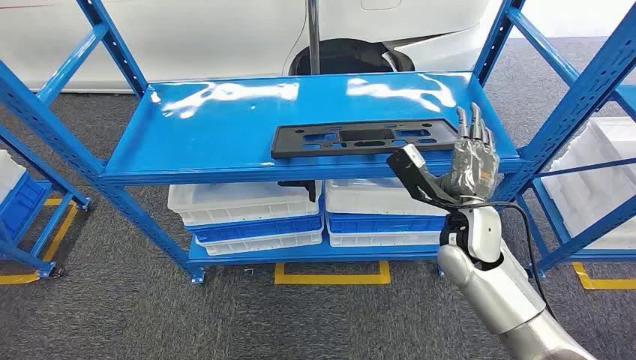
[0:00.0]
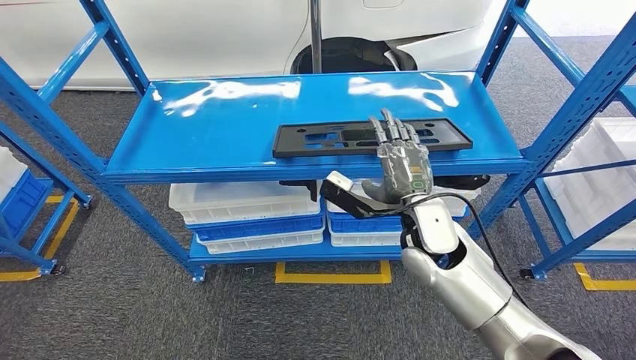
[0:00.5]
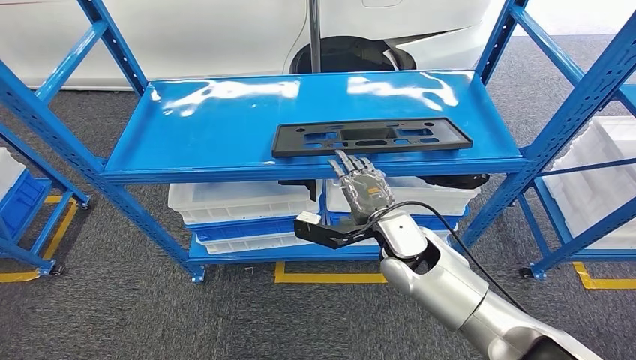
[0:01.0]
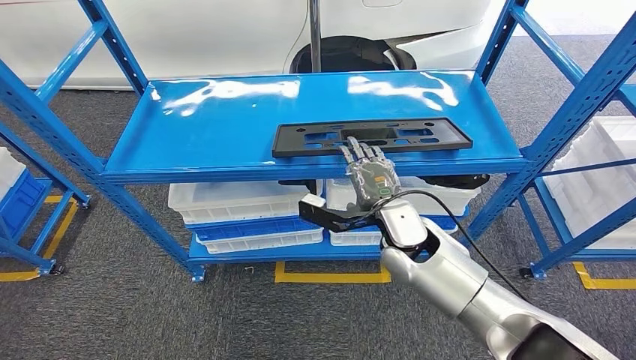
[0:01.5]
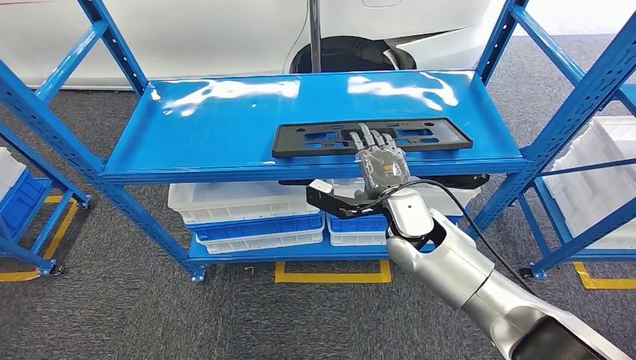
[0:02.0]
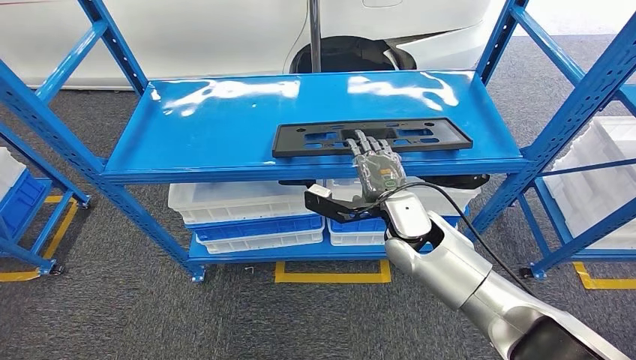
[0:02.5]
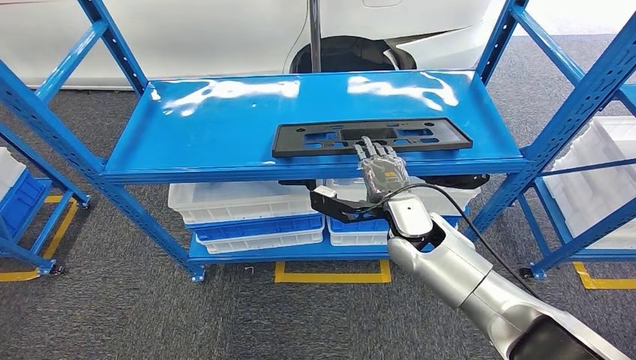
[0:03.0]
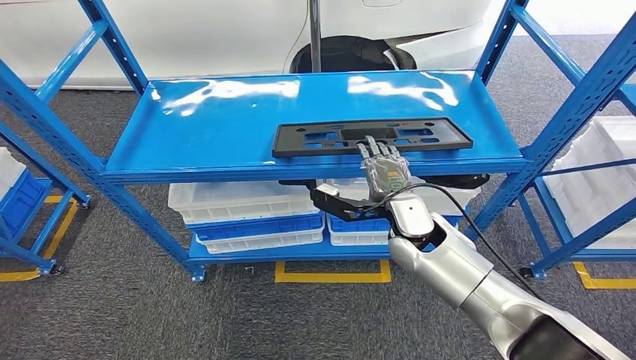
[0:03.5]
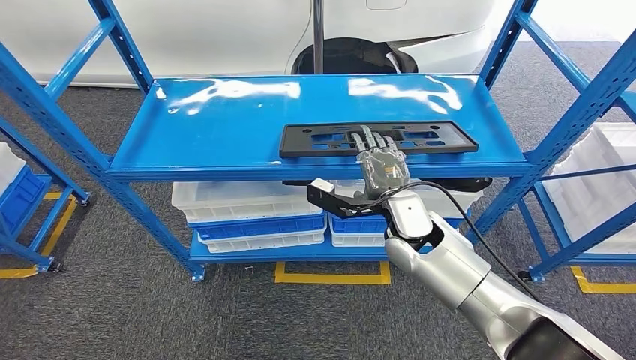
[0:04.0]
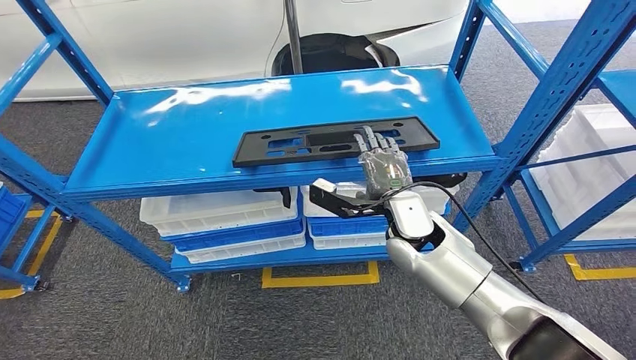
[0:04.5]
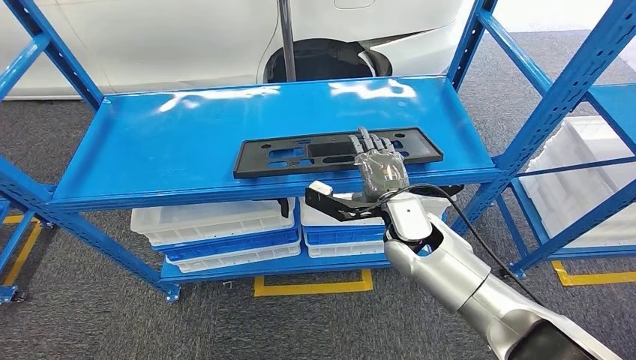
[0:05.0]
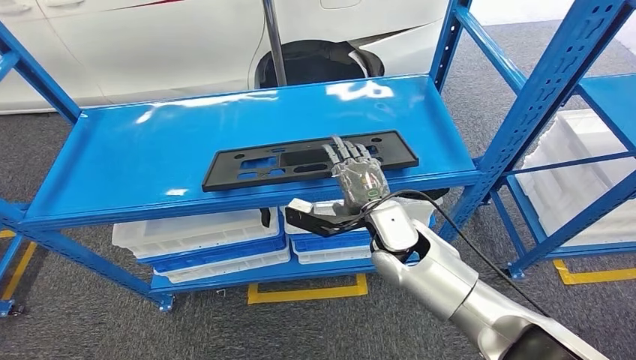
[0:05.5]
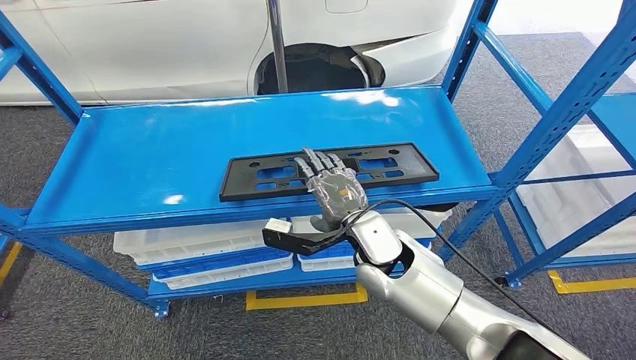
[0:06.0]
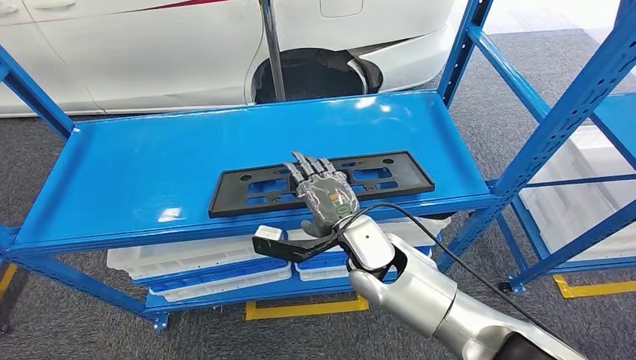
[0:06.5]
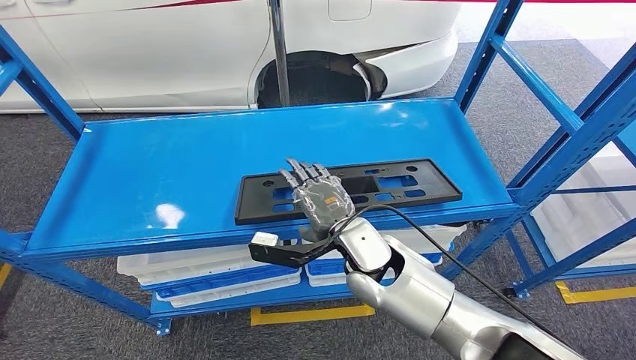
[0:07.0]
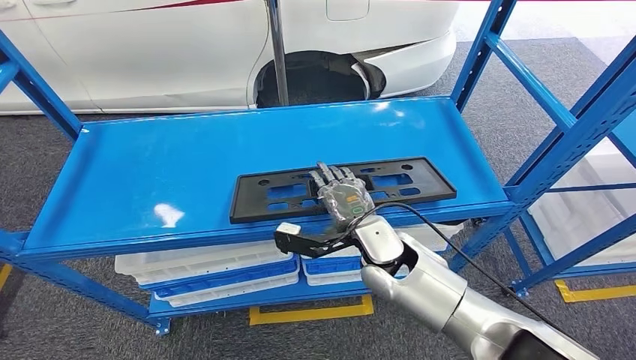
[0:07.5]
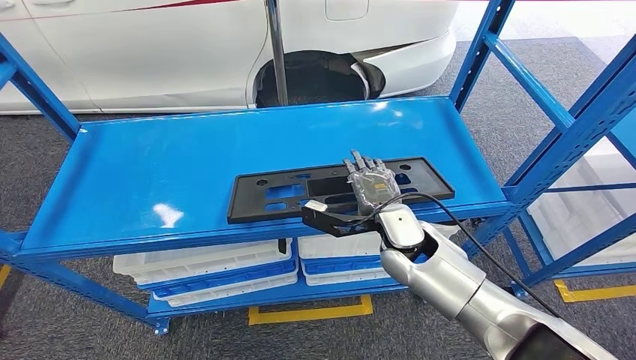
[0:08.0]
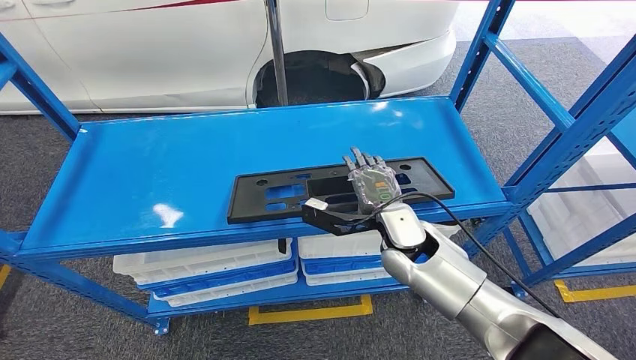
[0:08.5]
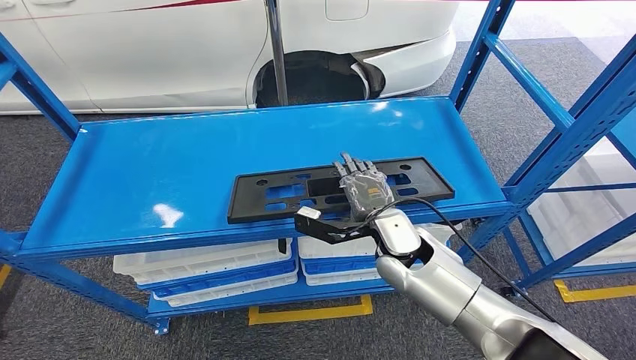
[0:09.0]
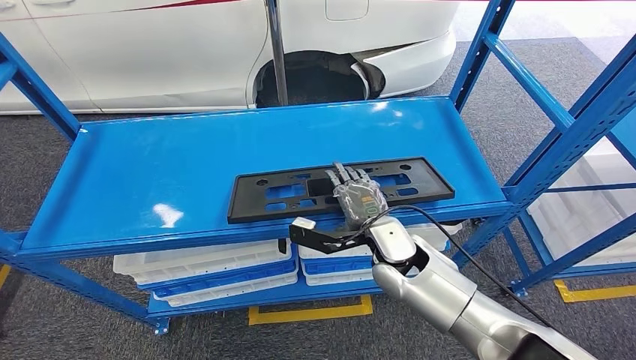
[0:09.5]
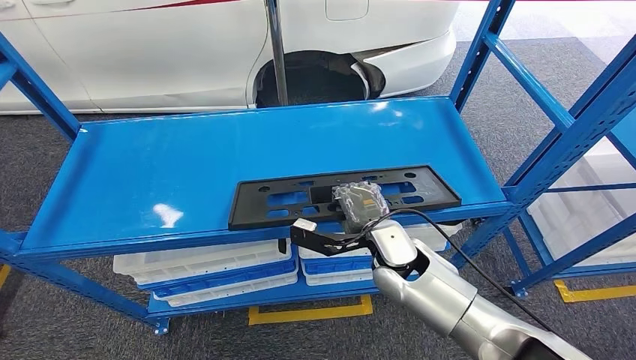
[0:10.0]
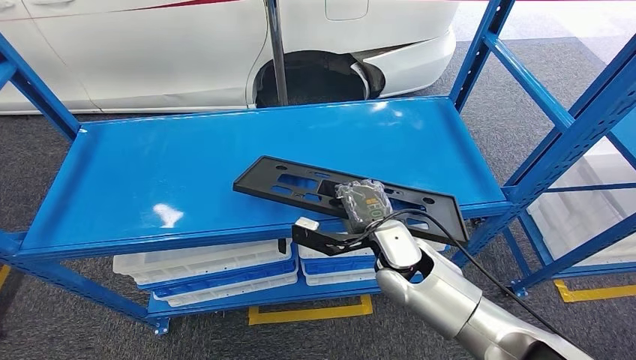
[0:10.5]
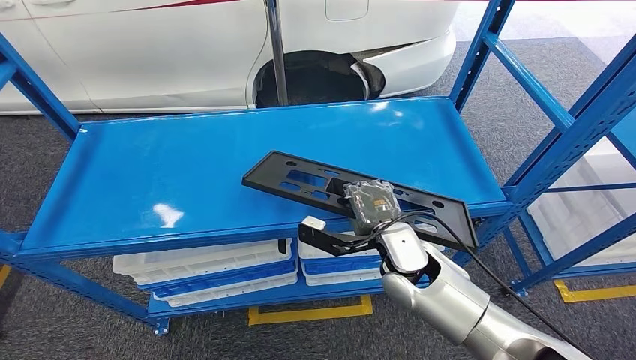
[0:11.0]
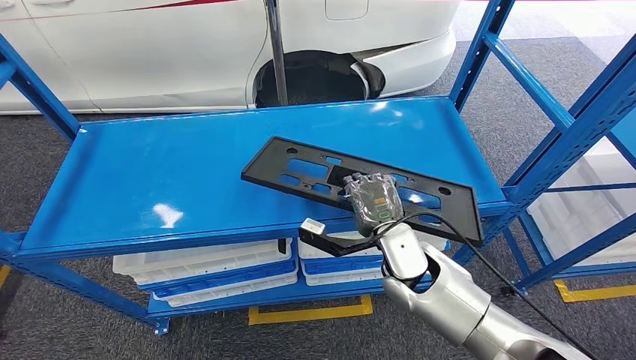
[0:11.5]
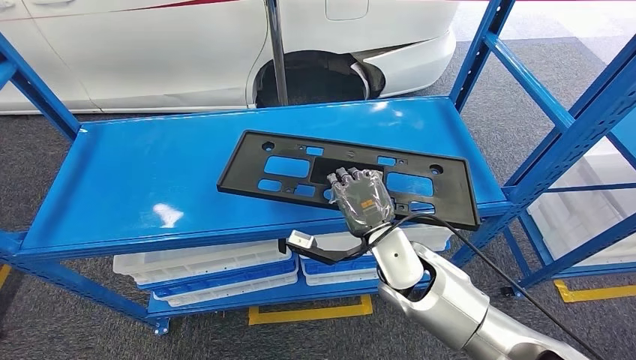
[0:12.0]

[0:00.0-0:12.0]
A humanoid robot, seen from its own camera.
0:02.0 to 0:04.0: The hands make only small movements.
0:08.0 to 0:10.0: There are only small adjustments of the hands.

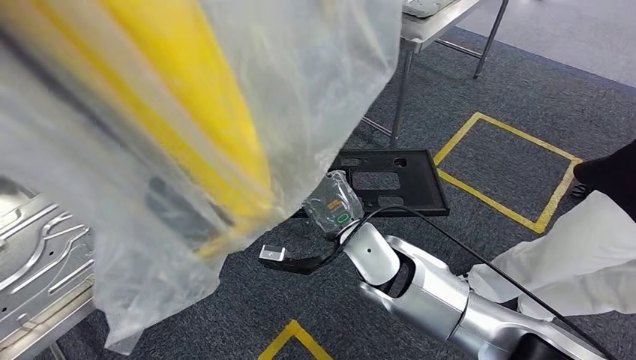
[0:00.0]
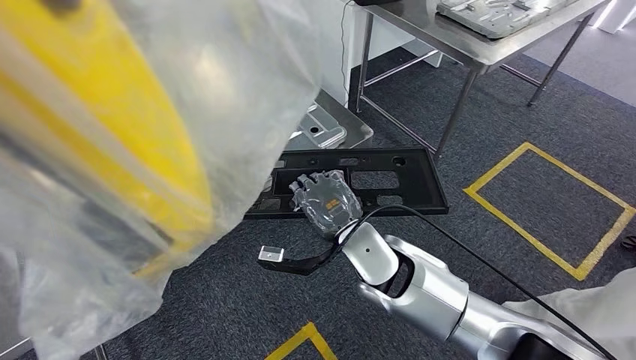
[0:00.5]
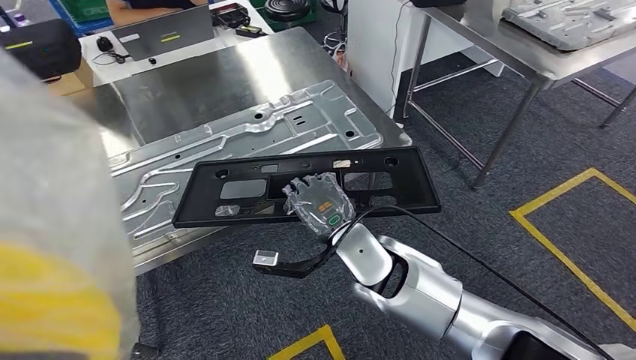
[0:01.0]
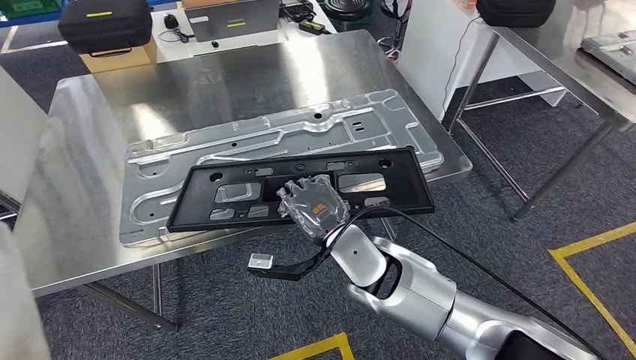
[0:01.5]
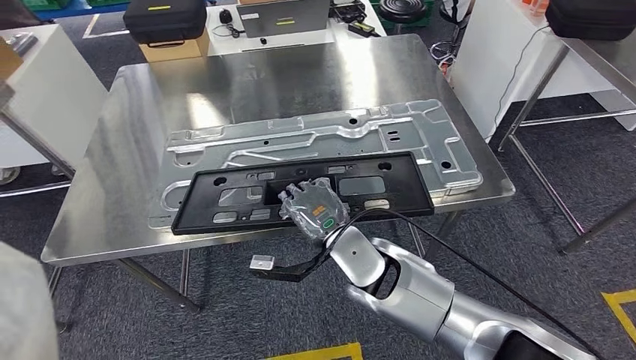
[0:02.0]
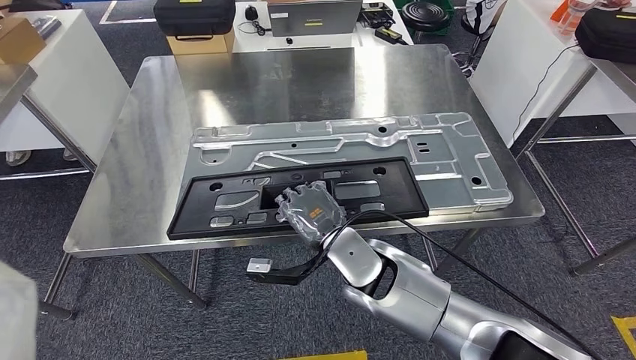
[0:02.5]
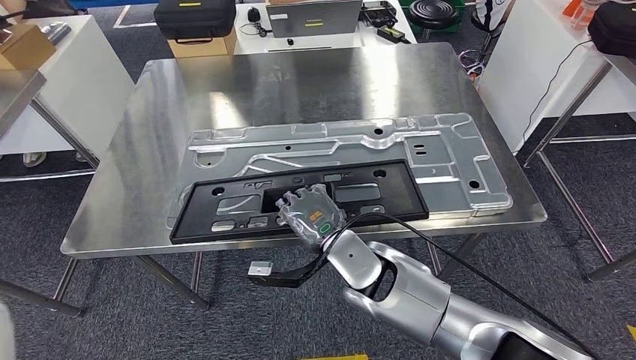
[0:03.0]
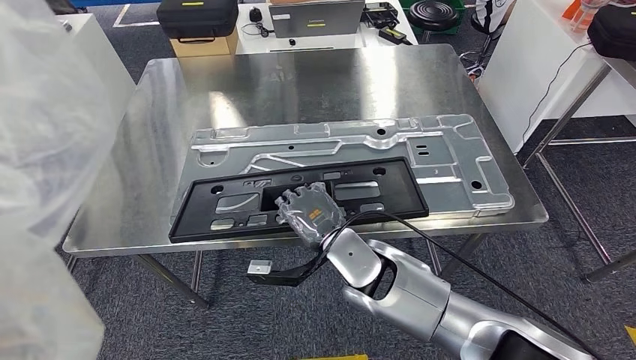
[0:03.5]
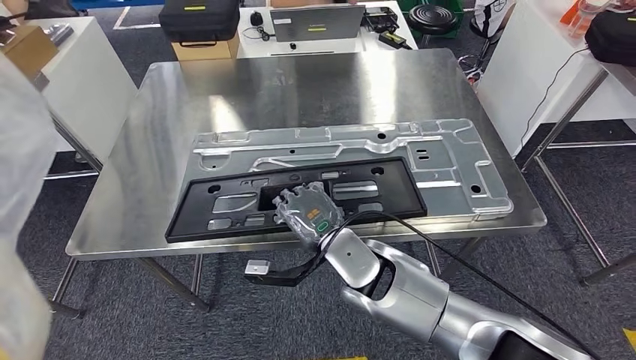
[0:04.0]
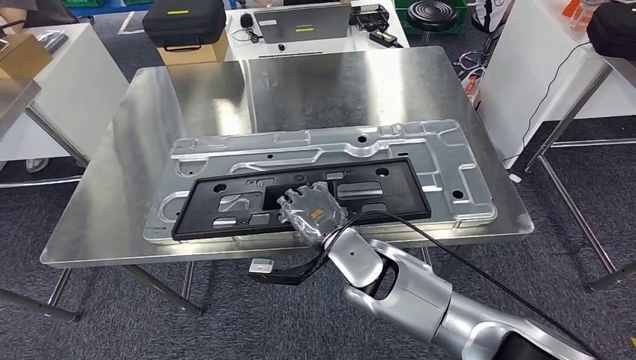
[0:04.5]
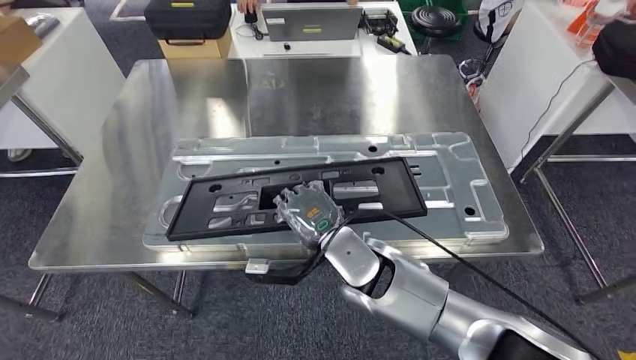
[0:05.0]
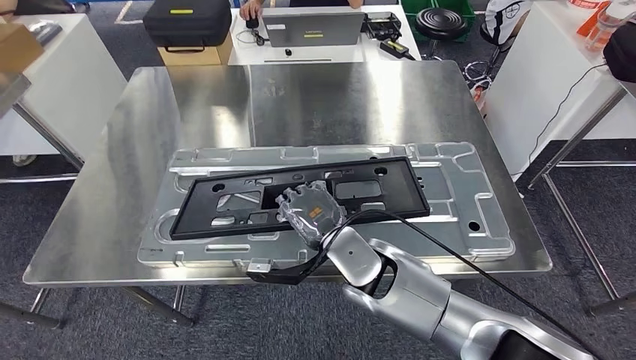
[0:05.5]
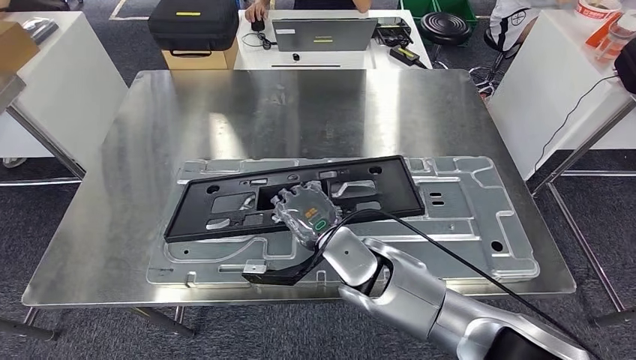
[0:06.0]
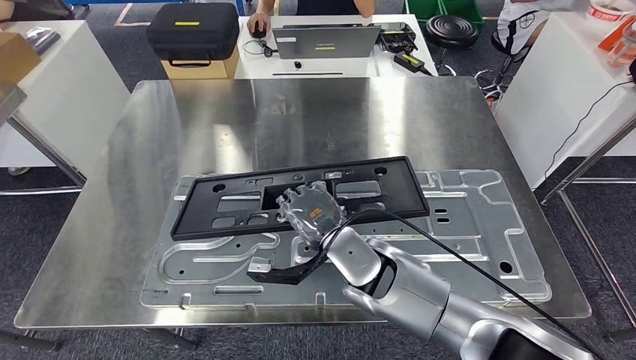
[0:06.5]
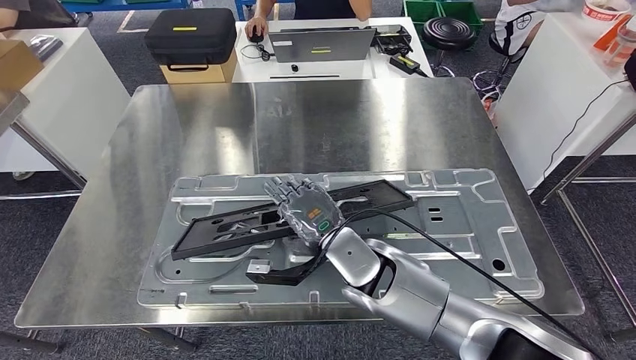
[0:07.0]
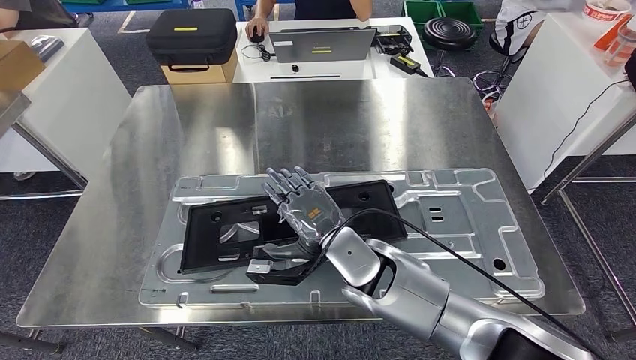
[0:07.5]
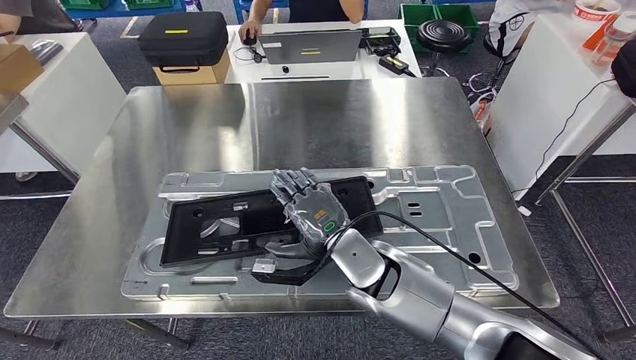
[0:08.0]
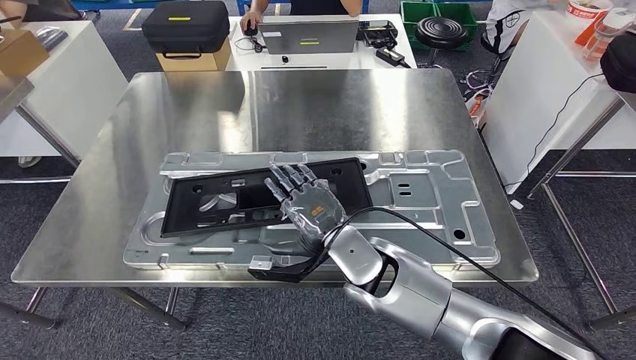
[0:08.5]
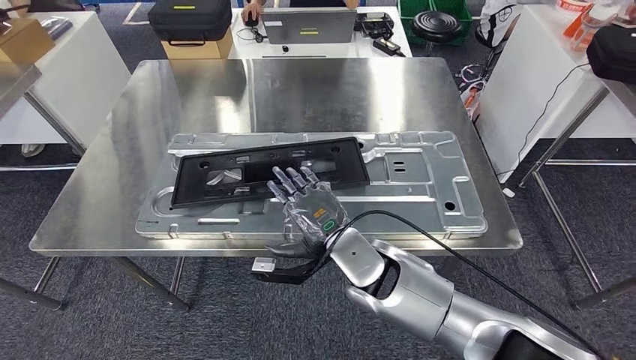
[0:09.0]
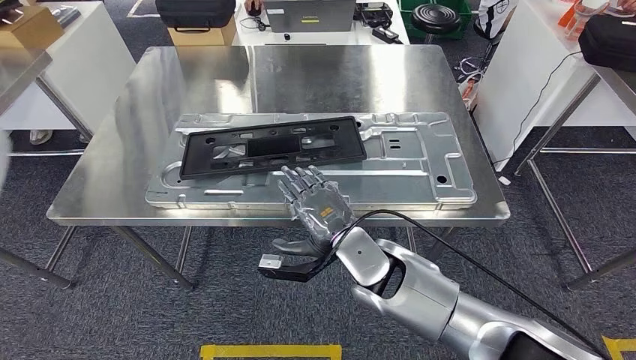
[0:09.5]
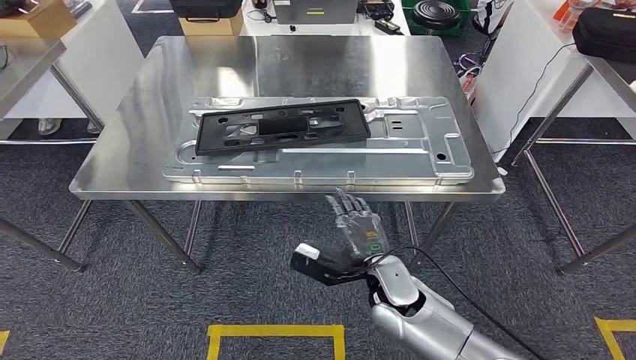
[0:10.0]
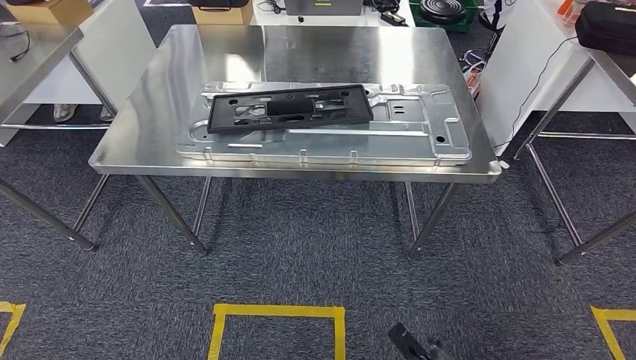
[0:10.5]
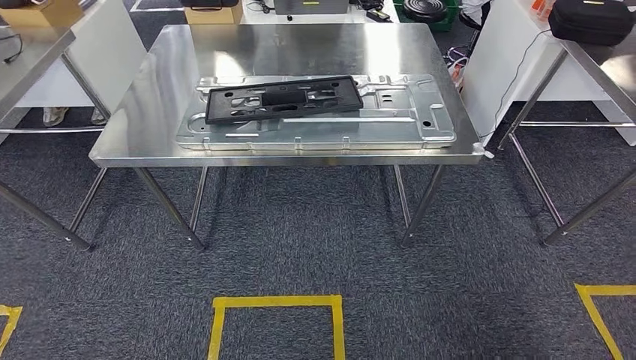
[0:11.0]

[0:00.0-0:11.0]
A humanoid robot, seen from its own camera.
Step, 0:00.0 to 0:03.0: Move the large parts to the workbench.
Step, 0:04.5 to 0:09.5: Insert the large parts into the corresponding slots on the workbench.
